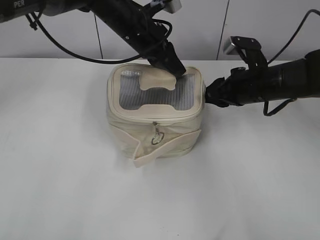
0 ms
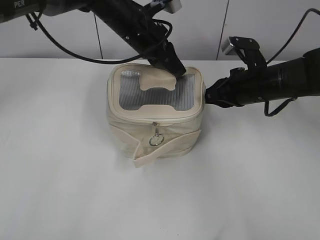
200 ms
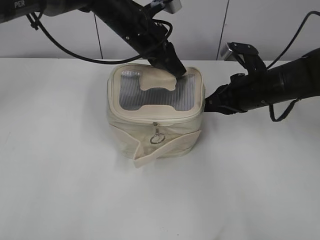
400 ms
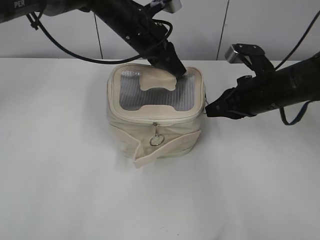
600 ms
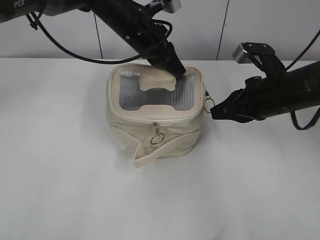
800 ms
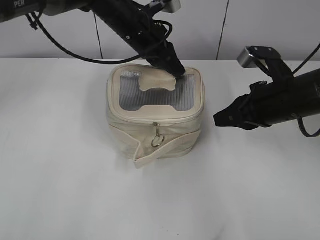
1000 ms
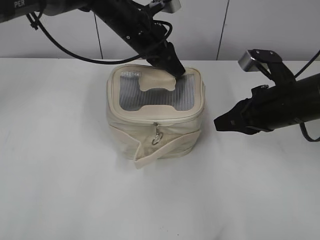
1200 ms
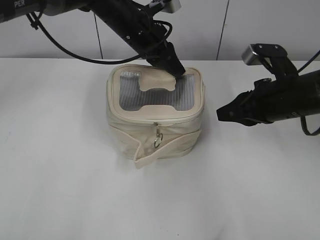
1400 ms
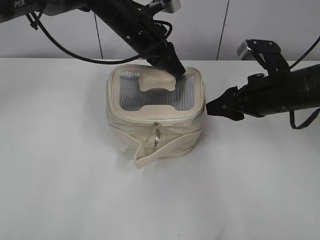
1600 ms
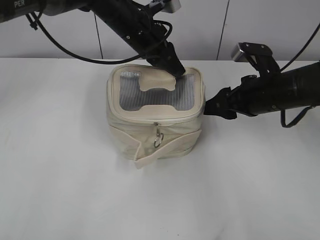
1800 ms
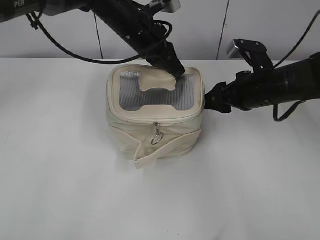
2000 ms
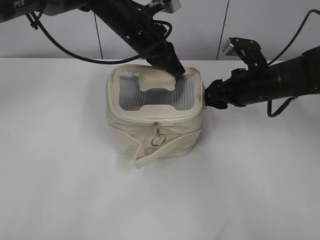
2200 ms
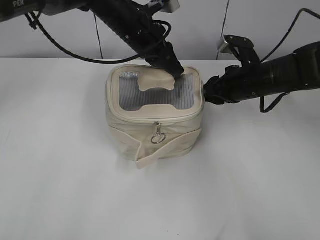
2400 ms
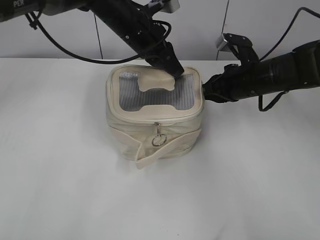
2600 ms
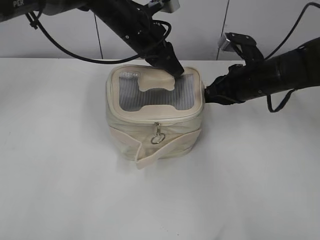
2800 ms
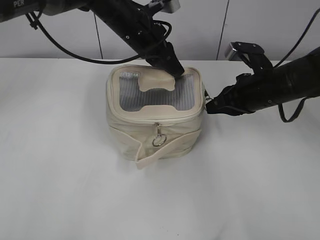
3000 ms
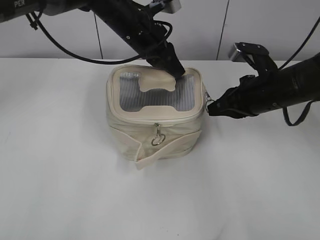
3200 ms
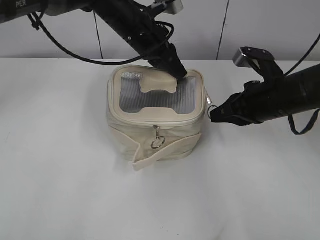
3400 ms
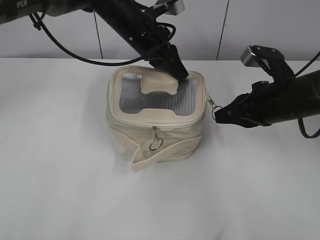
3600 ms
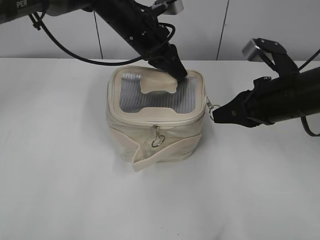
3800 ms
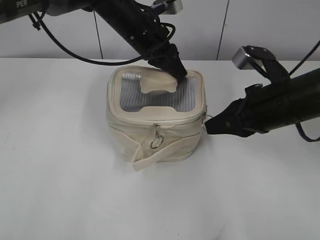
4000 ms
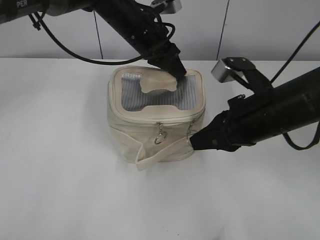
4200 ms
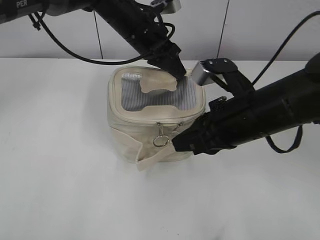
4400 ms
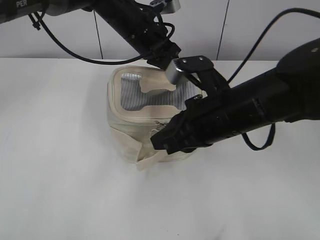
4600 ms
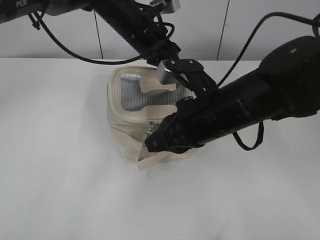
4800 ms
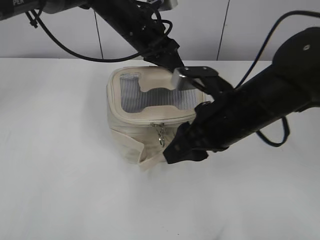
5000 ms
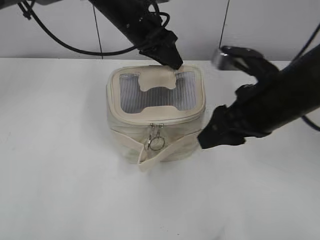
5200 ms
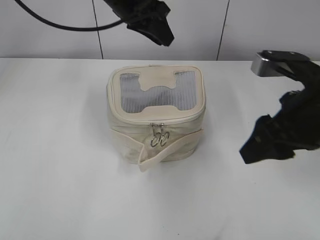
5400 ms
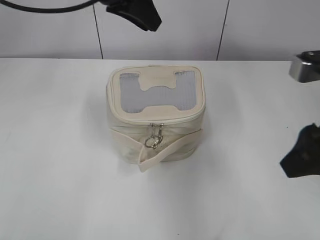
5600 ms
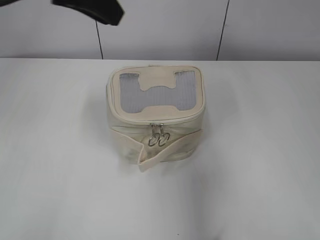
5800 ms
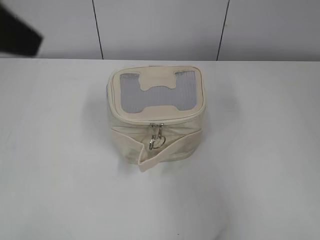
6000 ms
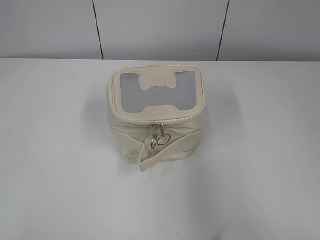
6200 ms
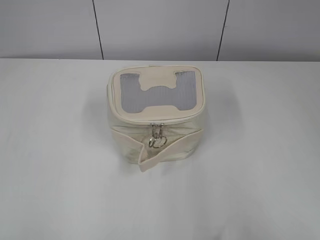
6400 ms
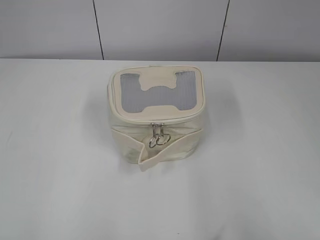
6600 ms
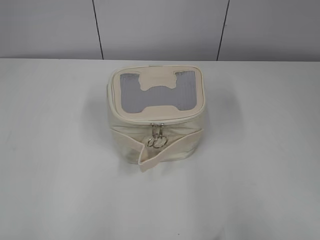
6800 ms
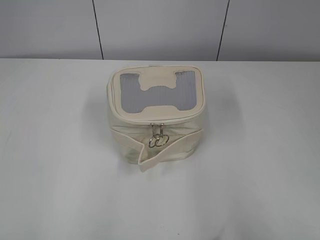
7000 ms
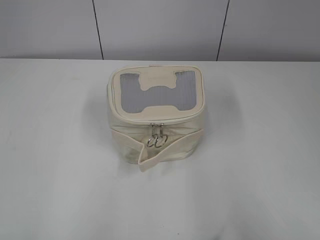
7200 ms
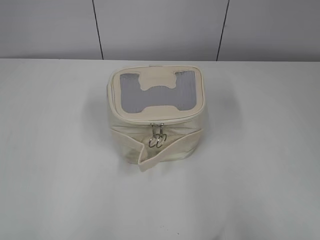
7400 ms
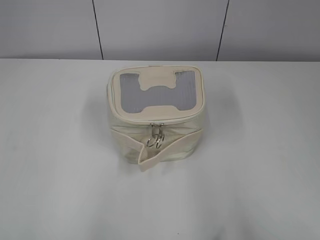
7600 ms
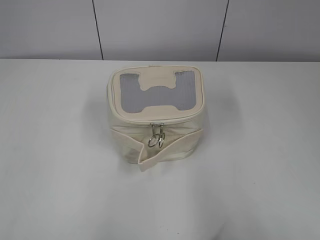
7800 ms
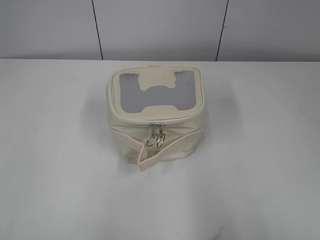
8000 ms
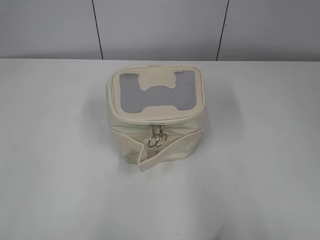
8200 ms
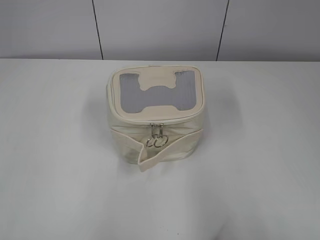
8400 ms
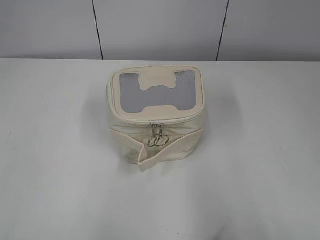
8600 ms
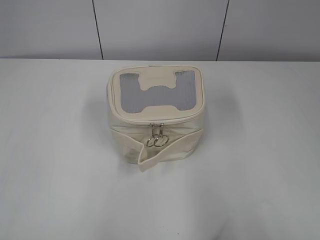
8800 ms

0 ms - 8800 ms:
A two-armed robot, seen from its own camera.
Step, 0 ms - 4800 ms: Zip up the bag with your right hand.
0 ms - 1400 ms: The right gripper is displaced backward by about 5 cm, and closes its fingers.
1400 ms - 3000 ms: The right gripper goes approximately 5 cm forward, and opens, then closes once more.
3000 ms - 4400 ms: The right gripper goes some 10 cm backward and to the left.
4400 ms - 5800 ms: The right gripper is displaced upward, to the right and backward by approximately 15 cm, and opens up. The left gripper heads upward, backward and to the left, covering approximately 20 cm.
5800 ms - 7400 ms: The right gripper is displaced backward and to the right by roughly 20 cm. Meanwhile the left gripper is displaced backward and to the left by about 40 cm.

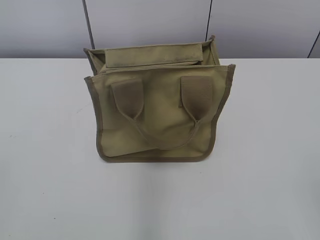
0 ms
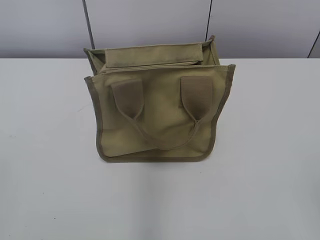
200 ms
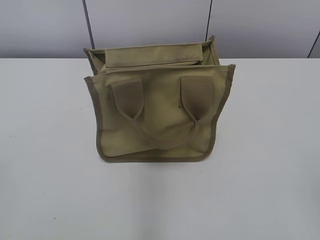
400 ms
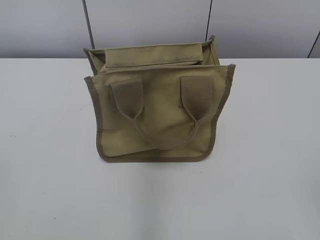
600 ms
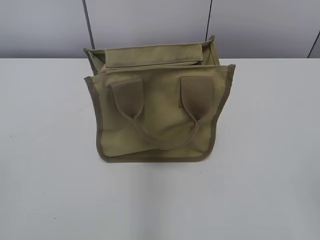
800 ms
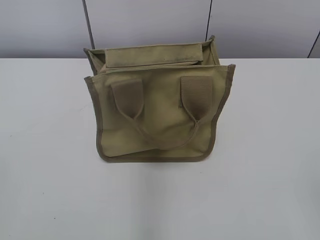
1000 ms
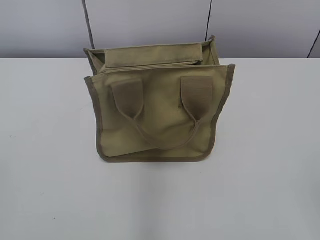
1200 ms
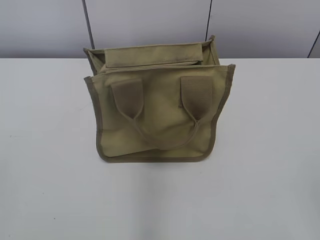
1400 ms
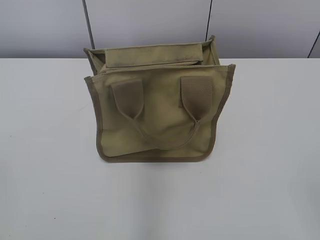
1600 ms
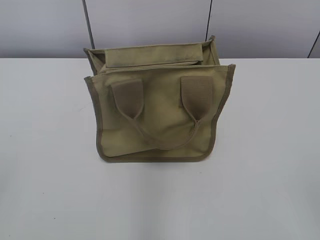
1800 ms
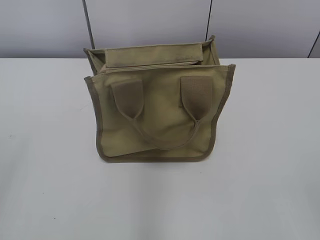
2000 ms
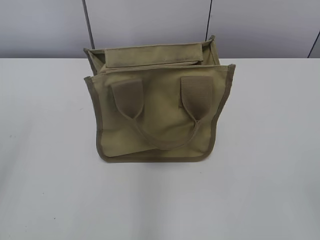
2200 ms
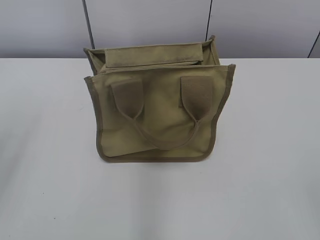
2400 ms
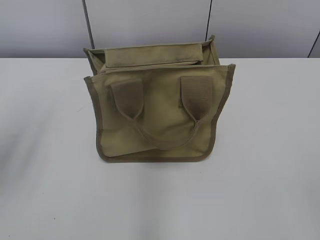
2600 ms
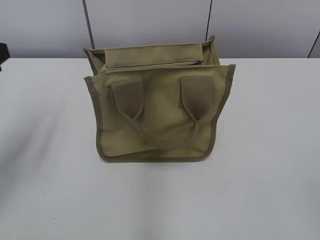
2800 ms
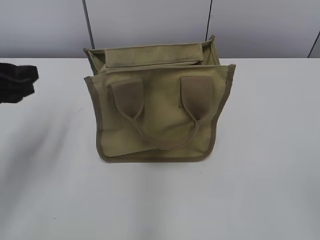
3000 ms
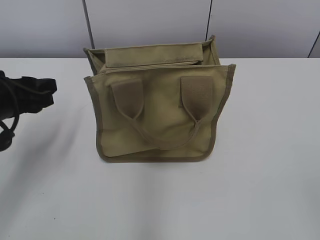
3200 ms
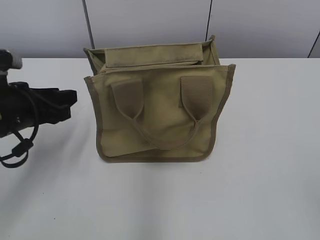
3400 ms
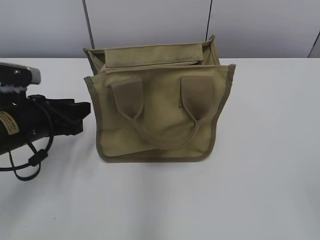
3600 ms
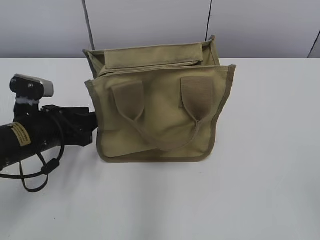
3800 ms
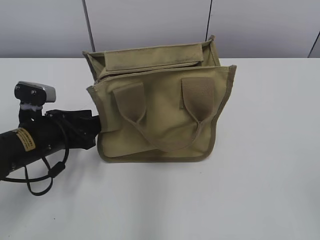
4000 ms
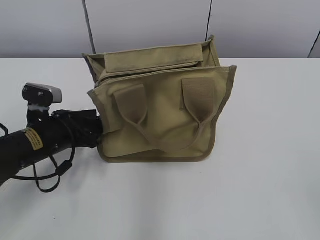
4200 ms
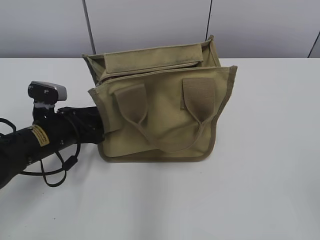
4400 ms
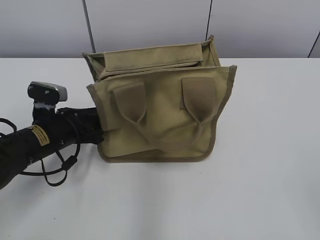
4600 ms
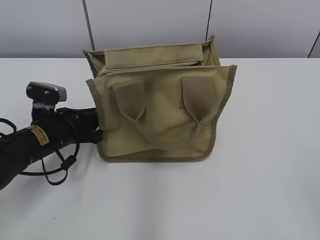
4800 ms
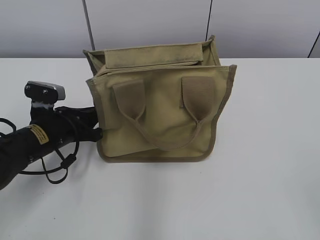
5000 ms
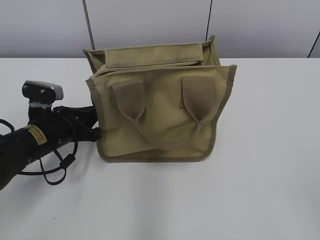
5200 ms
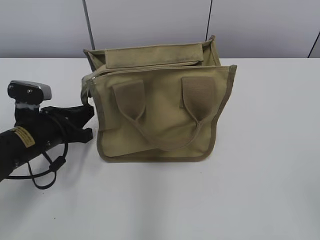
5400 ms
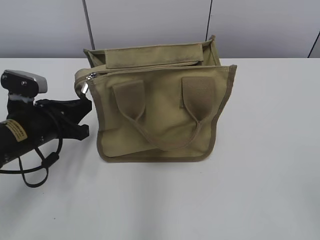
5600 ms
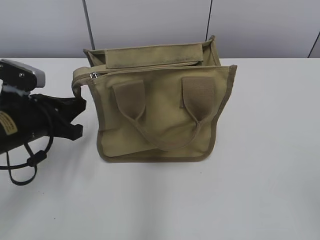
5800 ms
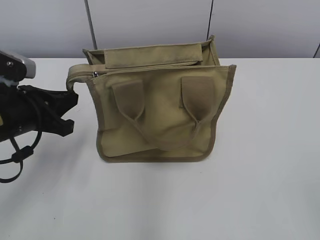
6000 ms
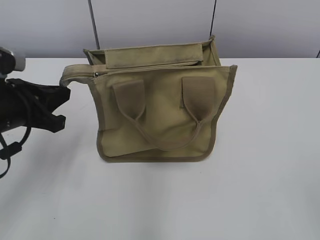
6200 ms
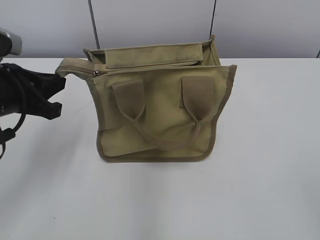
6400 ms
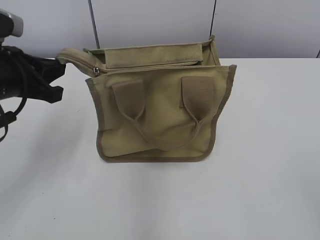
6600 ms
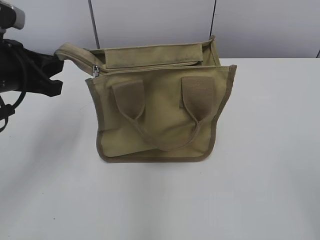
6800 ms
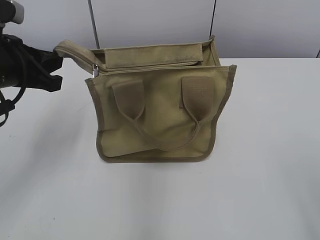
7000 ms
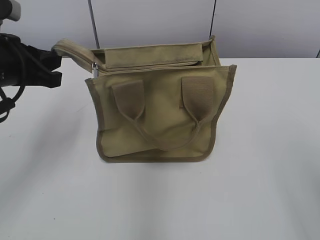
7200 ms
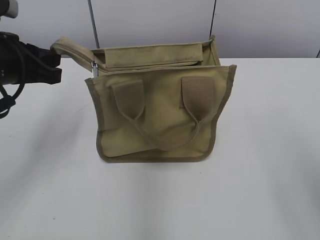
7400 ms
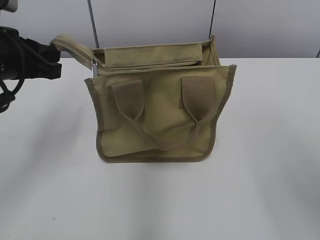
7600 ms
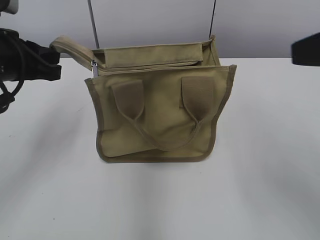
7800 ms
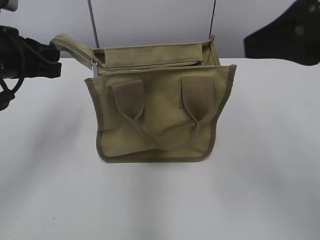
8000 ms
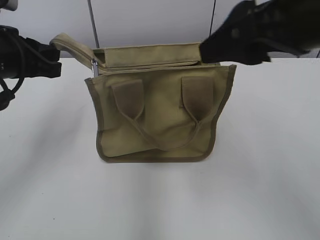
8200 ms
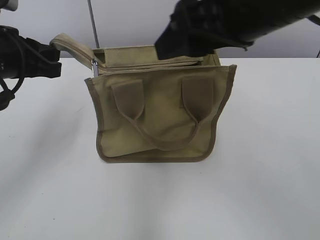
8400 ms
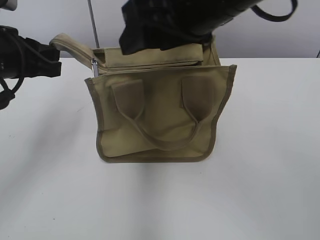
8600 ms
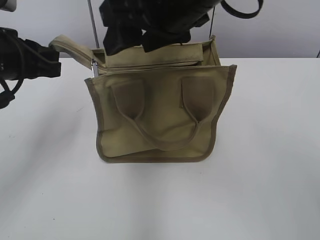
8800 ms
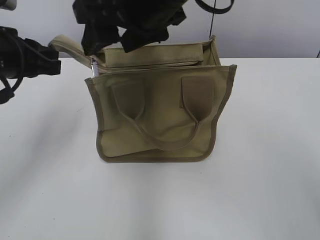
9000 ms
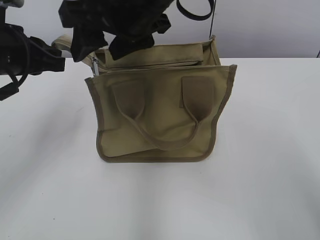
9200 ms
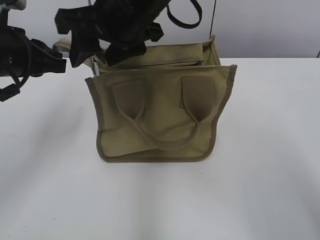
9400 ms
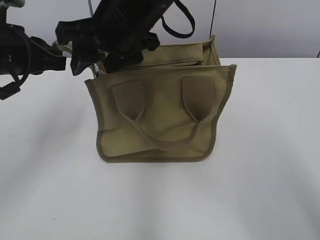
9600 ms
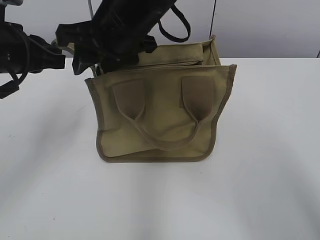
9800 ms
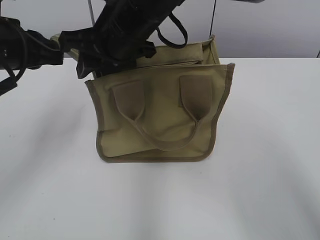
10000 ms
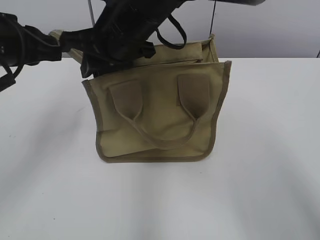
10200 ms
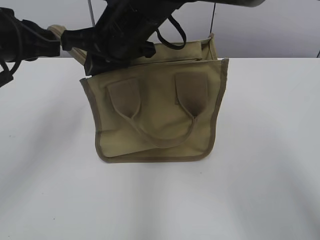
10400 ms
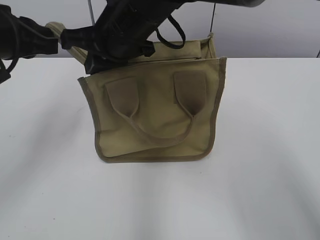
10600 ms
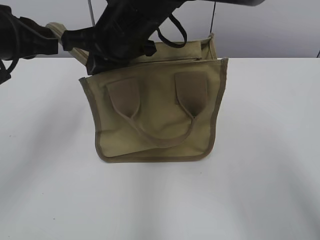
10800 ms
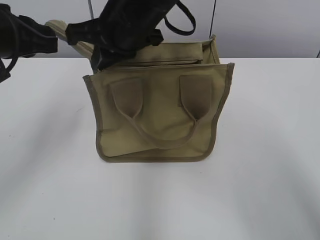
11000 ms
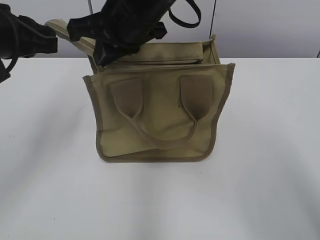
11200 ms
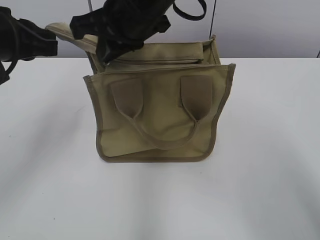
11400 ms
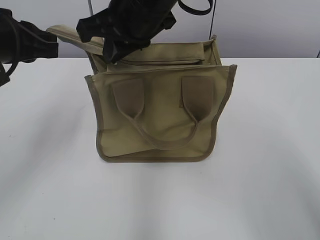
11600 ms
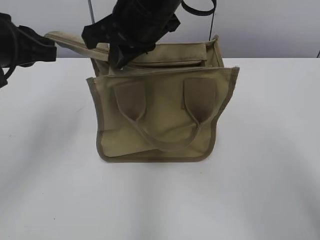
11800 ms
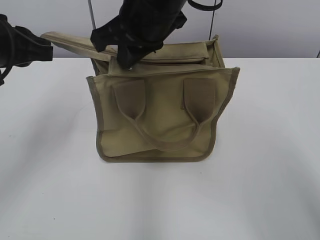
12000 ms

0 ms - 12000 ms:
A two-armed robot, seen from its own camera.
1600 ms - 3000 ms: The left gripper moves forward, approximately 25 cm.
3000 ms - 4400 ms: The left gripper travels downward and to the right by approximately 15 cm.
4400 ms - 6000 ms: The left gripper shifts roughly 10 cm upward, and closes.
6000 ms - 7600 ms: The right gripper goes roughly 15 cm forward and upward, while the left gripper moves upward, approximately 10 cm.
7600 ms - 9000 ms: The right gripper moves to the left and forward, roughly 30 cm.
9000 ms - 10400 ms: The right gripper is displaced downward and forward by roughly 10 cm, and closes up.
10400 ms - 12000 ms: The right gripper moves about 5 cm.

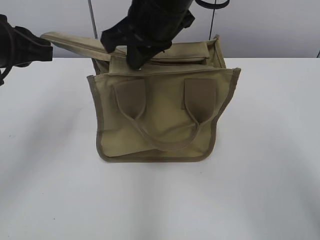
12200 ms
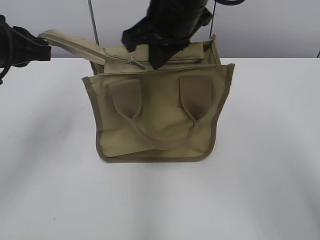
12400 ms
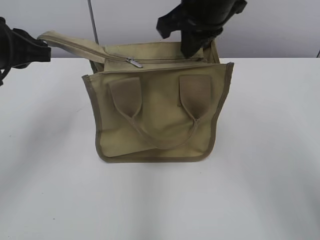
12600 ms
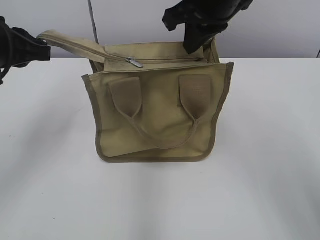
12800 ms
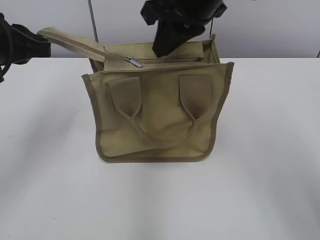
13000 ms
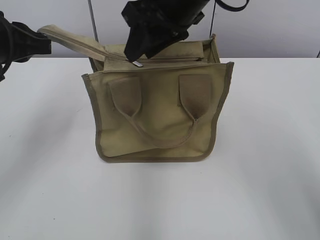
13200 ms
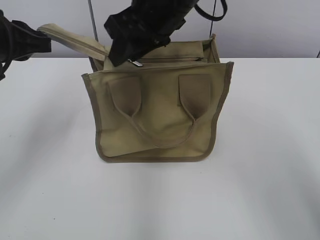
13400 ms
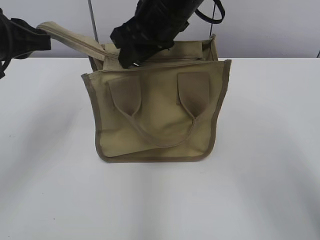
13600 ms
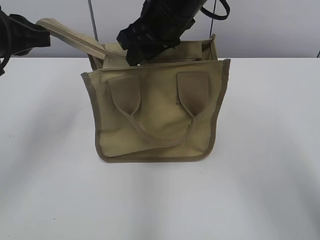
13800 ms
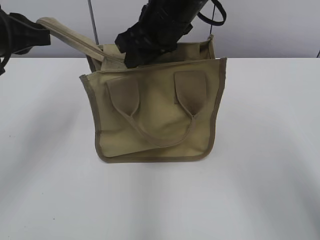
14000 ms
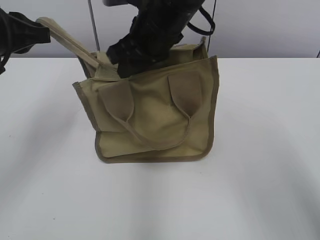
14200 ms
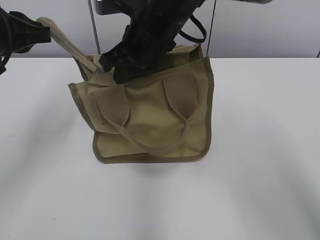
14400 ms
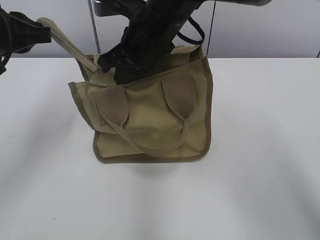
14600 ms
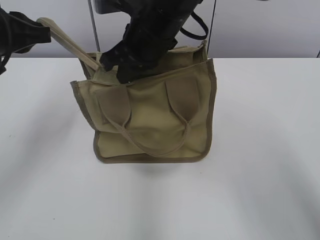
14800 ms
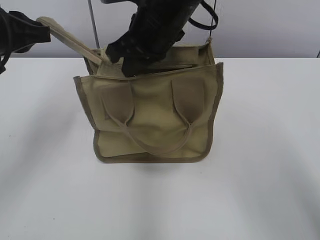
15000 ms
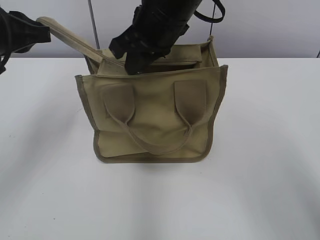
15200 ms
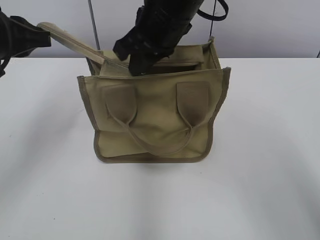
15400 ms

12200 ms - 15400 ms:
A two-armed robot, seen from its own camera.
12200 ms - 13800 ms: The right gripper opens its fingers.
13800 ms - 15400 ms: The right gripper closes its fingers.
